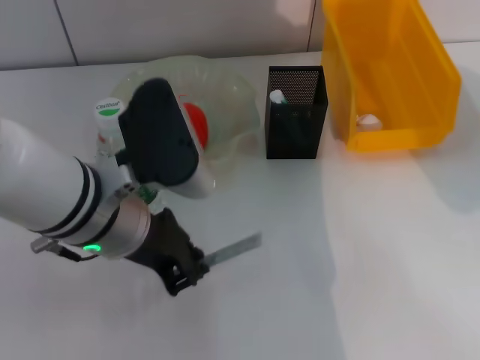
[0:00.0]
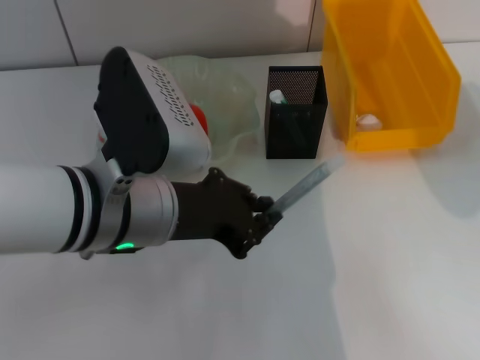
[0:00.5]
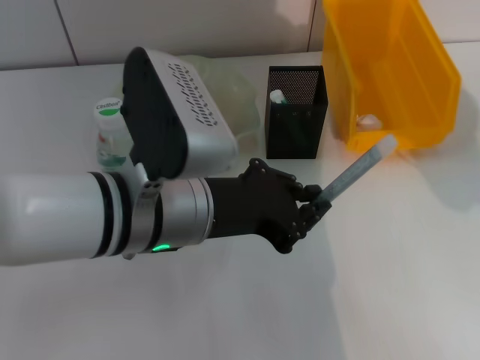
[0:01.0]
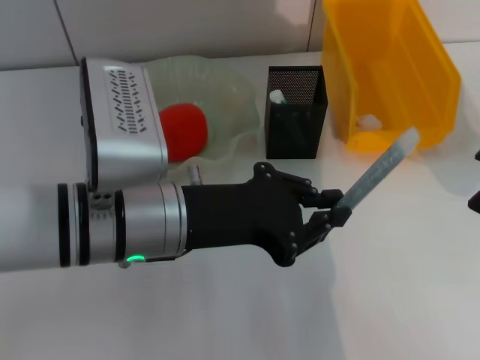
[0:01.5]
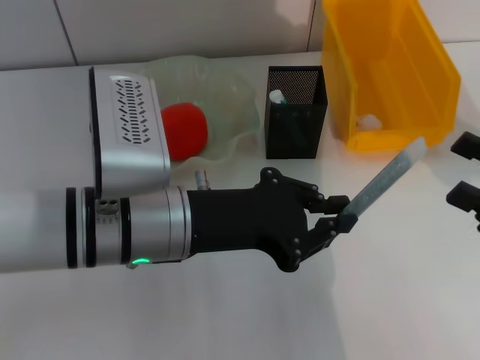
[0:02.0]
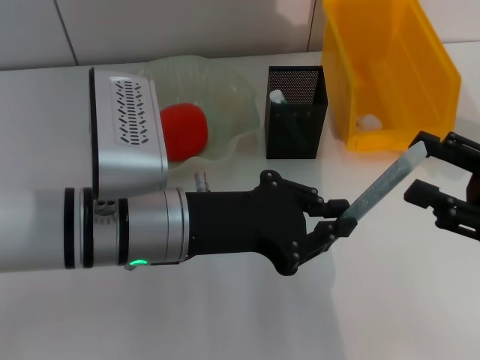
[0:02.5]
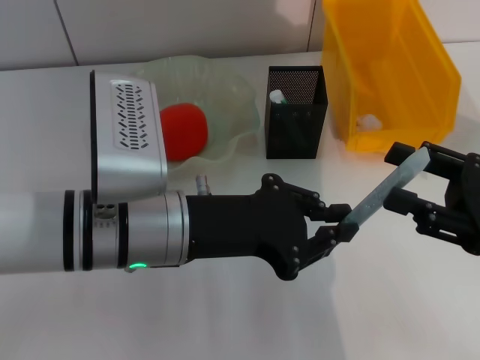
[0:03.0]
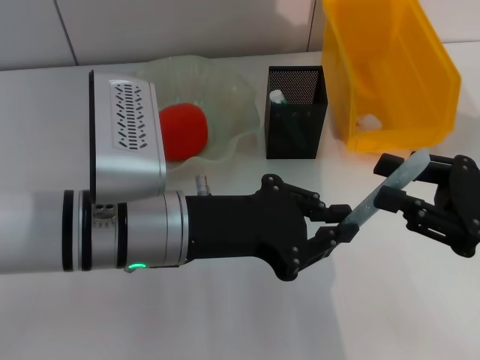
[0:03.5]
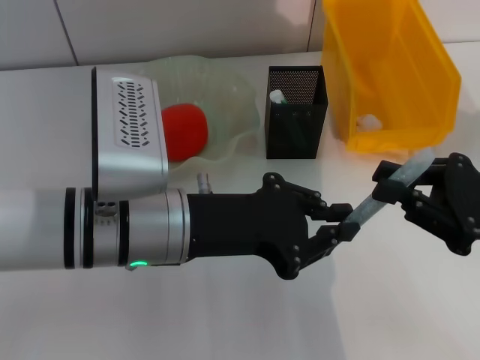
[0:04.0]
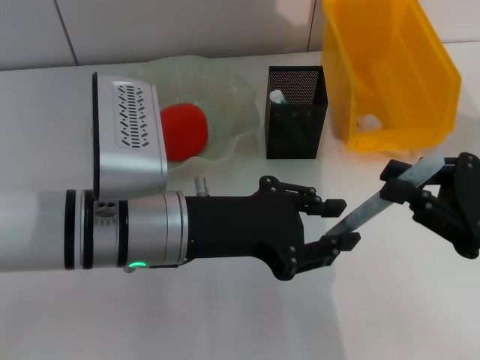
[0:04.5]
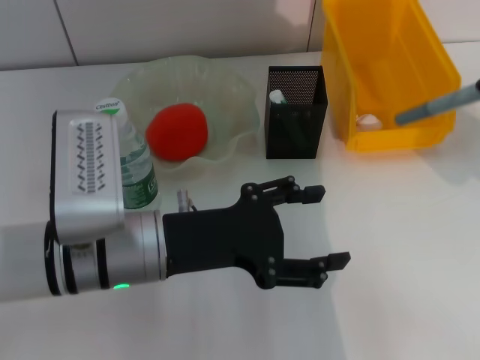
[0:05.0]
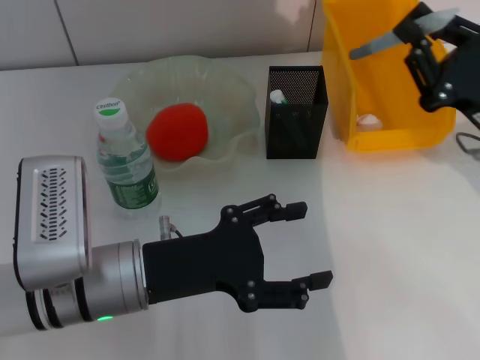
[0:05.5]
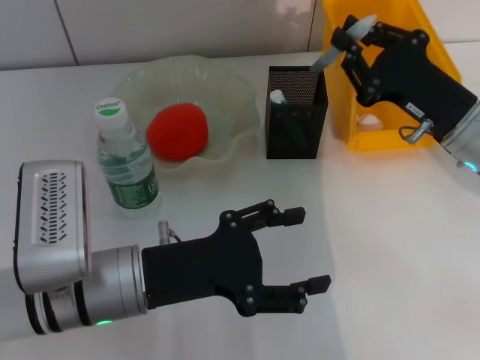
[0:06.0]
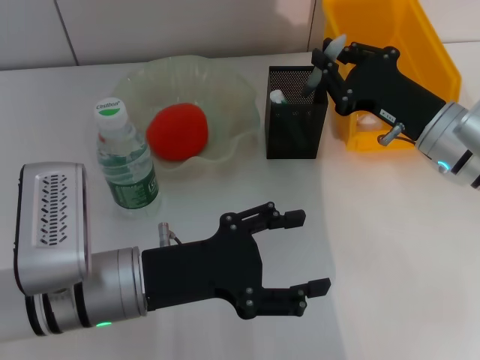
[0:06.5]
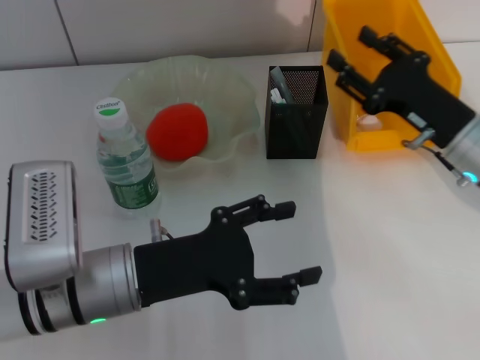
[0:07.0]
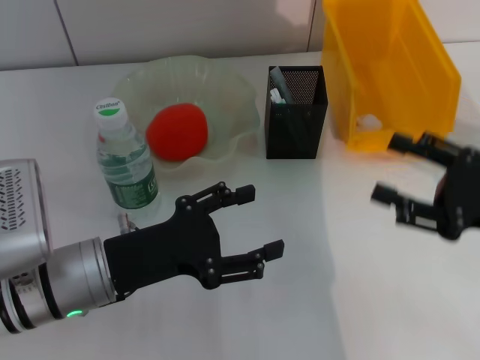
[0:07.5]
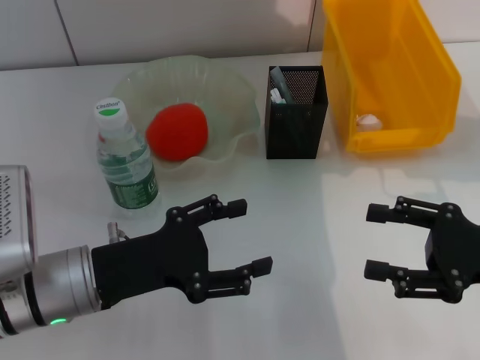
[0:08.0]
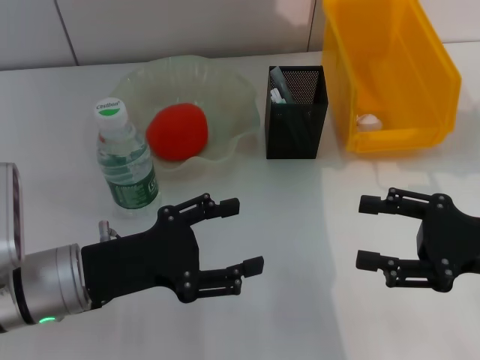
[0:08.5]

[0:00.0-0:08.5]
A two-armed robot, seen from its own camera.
Step, 0:00.0 to 0:04.0: Pass the gray glue from the left hand to the right hand.
Step, 0:05.0 to 0:07.0: Place the gray glue into the pen holder with the right hand.
0:02.0 to 0:04.0: The right gripper shifts by roughly 5 cm, and closes up.
0:04.0 to 0:06.5: The right gripper heads forward and to the left, covering about 15 cm, while the left gripper is displaced downward by roughly 5 cm, and opens its fingers.
0:06.5 to 0:08.5: The right gripper is displaced backward and to the right by roughly 15 cm, and opens its fingers; the left gripper shifts by approximately 5 cm.
